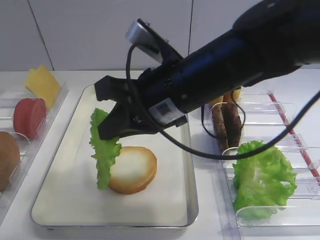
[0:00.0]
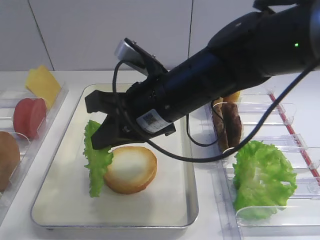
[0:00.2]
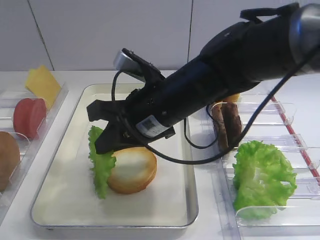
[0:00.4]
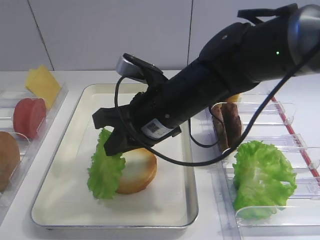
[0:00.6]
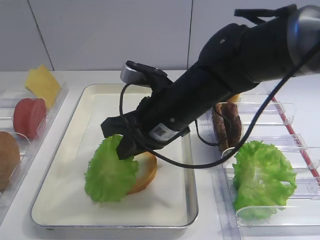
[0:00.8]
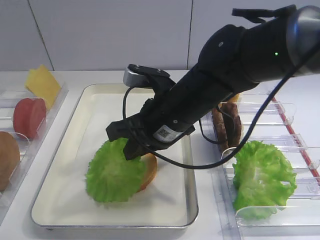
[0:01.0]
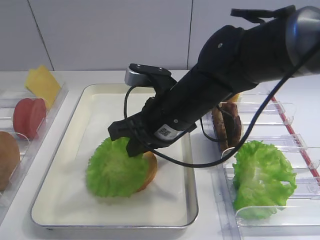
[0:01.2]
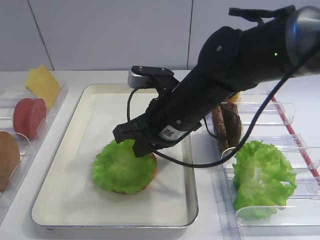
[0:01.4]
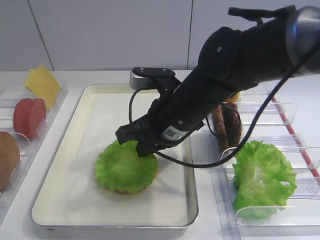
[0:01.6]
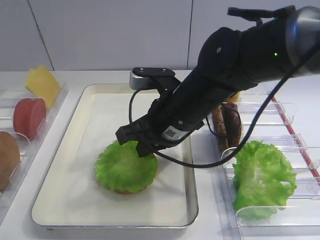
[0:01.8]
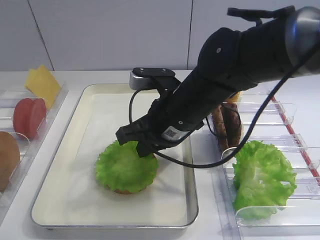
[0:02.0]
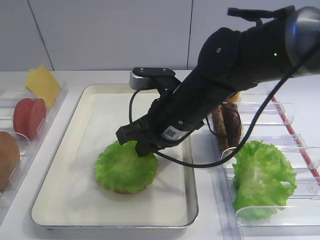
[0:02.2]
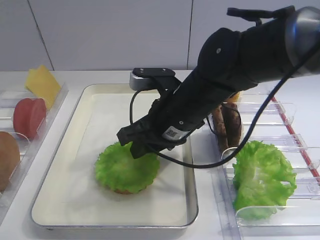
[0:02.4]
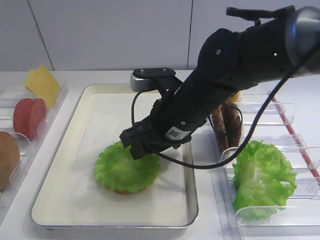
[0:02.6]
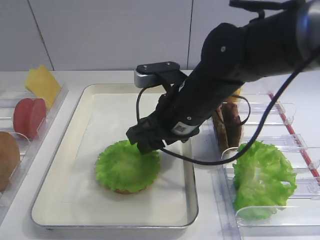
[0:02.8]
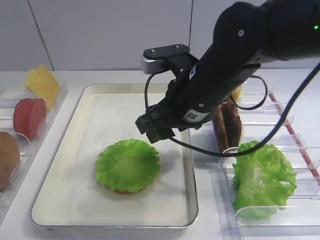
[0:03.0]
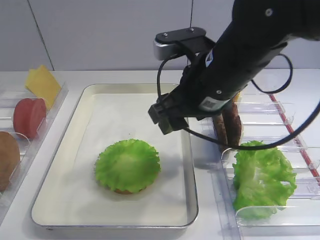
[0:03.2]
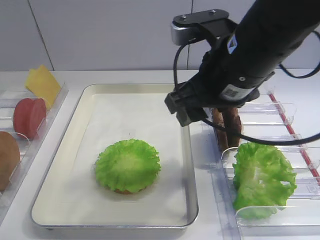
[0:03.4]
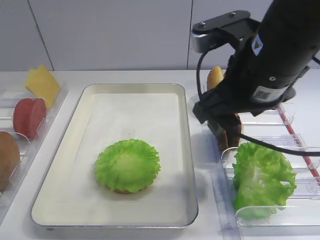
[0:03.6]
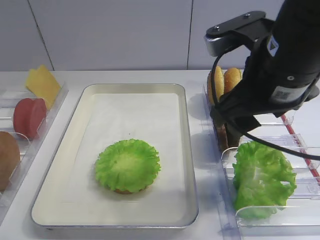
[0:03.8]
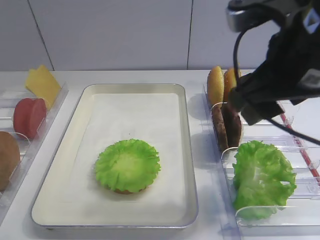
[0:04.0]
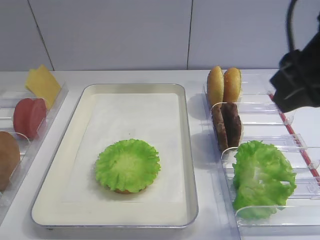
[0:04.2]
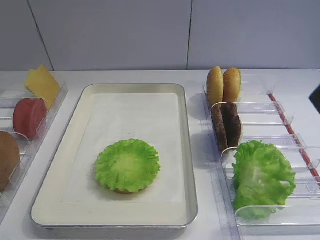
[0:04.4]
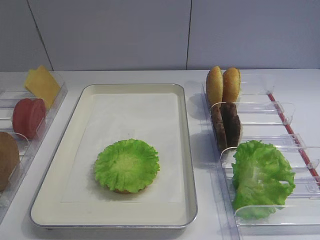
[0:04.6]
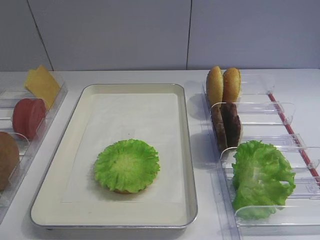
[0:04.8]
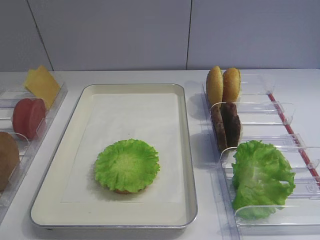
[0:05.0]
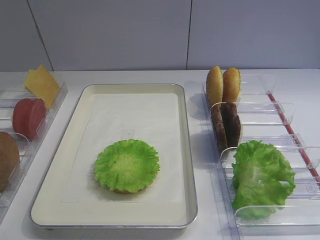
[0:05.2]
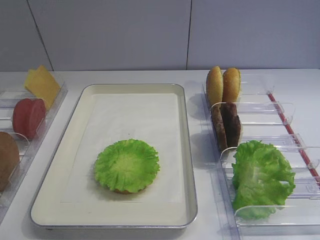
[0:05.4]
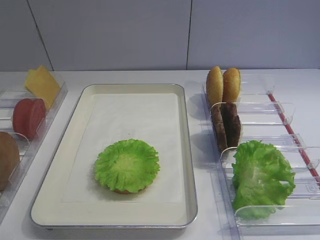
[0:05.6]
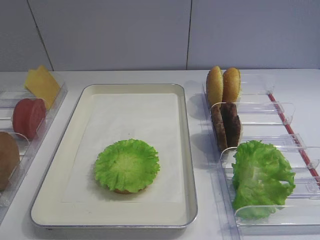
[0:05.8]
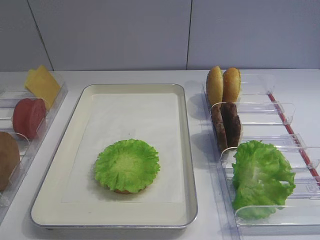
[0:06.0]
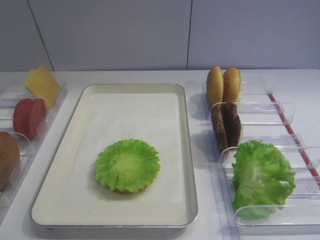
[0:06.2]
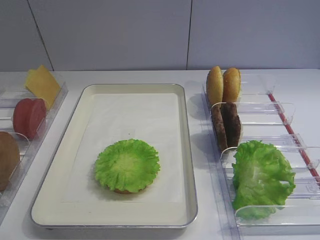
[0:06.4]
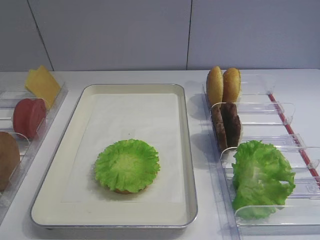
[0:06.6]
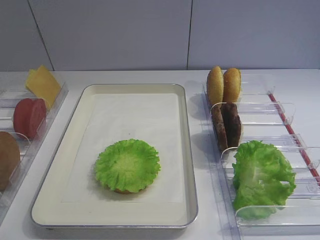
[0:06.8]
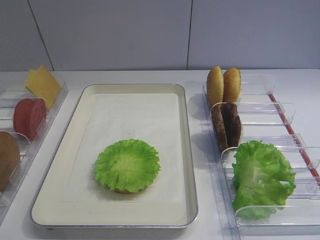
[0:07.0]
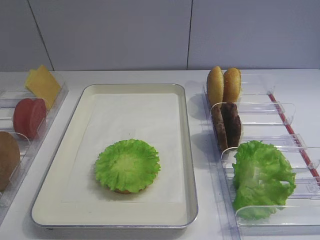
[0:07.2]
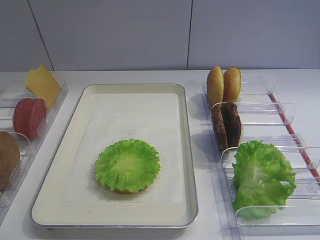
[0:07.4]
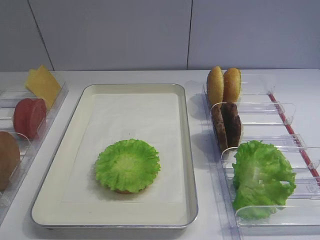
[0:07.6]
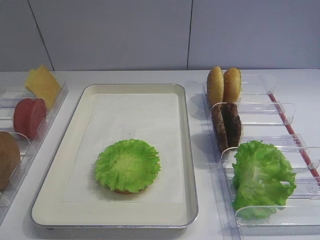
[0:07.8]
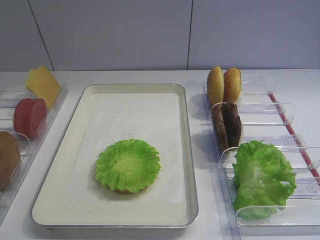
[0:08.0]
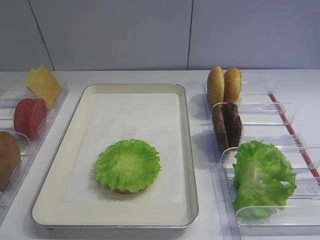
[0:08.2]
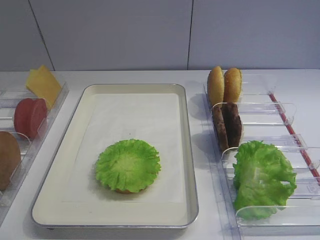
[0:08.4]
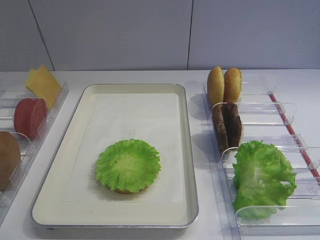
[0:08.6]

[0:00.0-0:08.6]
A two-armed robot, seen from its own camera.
Step, 0:00.0 to 0:03.0: Place the lettuce leaf on the bread slice with the right gripper.
0:00.0 to 0:01.4: The right gripper goes about 5 cm downward.
0:01.4 to 0:02.8: The right gripper opens.
0:02.8 to 0:04.4: The right gripper is displaced upward, to the right and backward by some 25 cm.
0:07.2 to 0:08.6: Neither gripper changes place.
